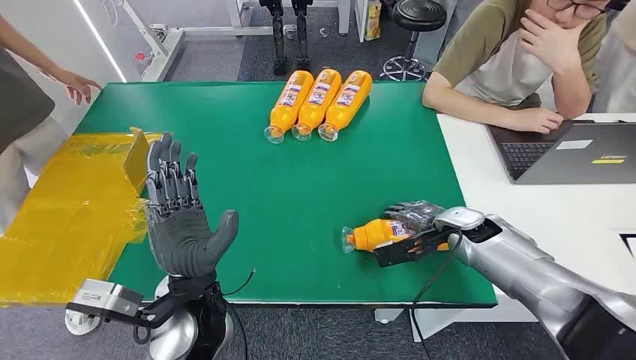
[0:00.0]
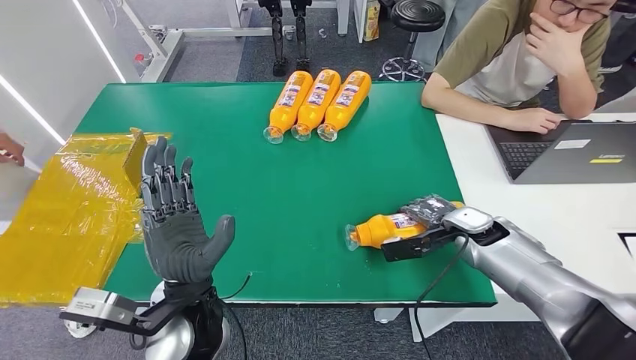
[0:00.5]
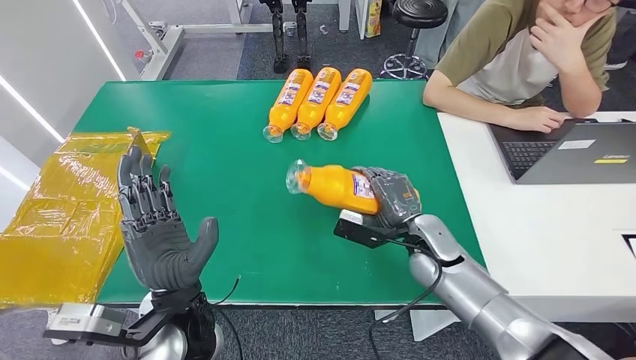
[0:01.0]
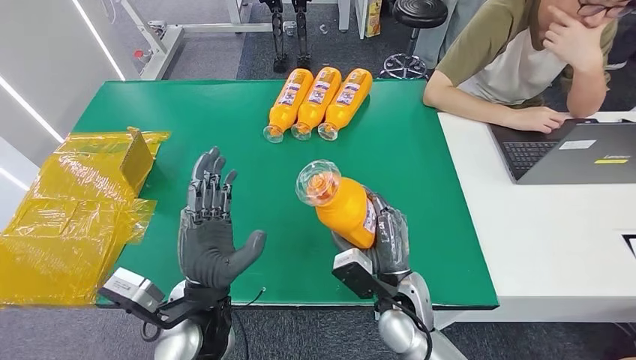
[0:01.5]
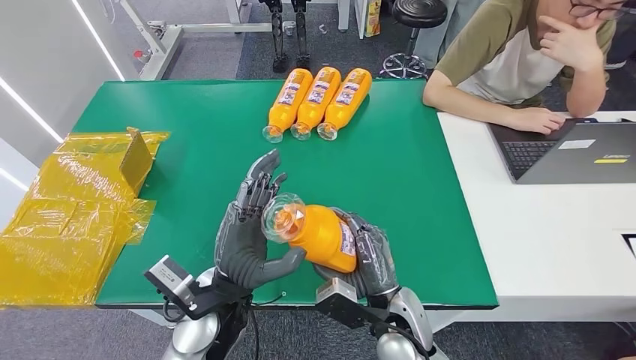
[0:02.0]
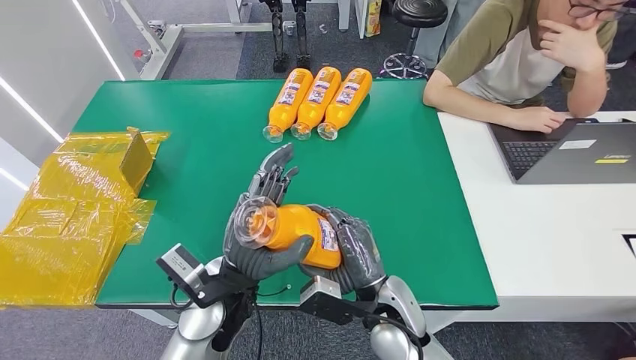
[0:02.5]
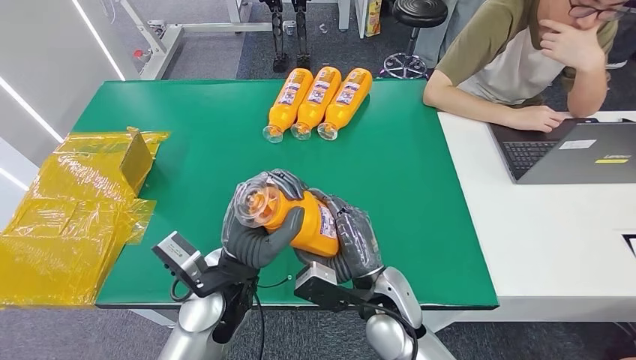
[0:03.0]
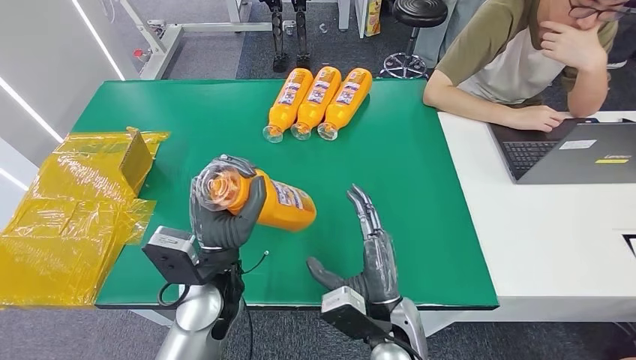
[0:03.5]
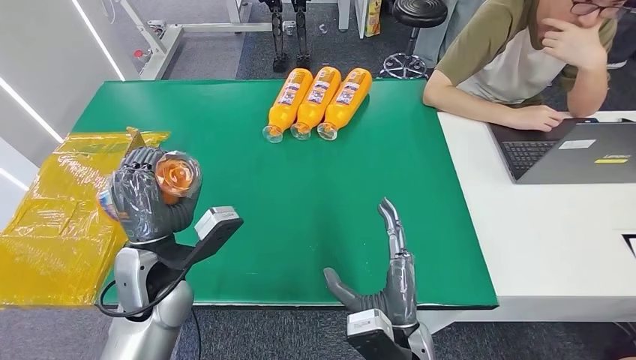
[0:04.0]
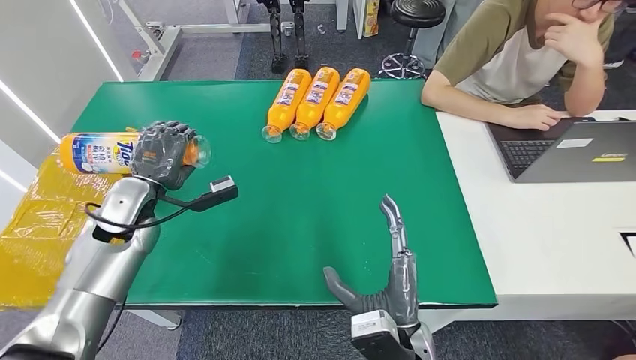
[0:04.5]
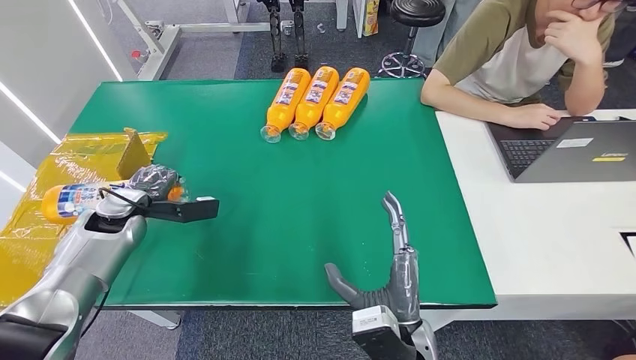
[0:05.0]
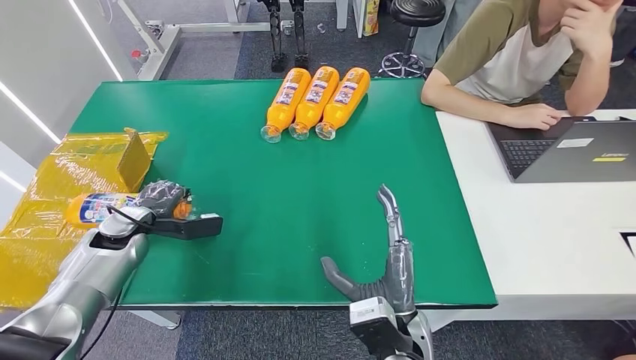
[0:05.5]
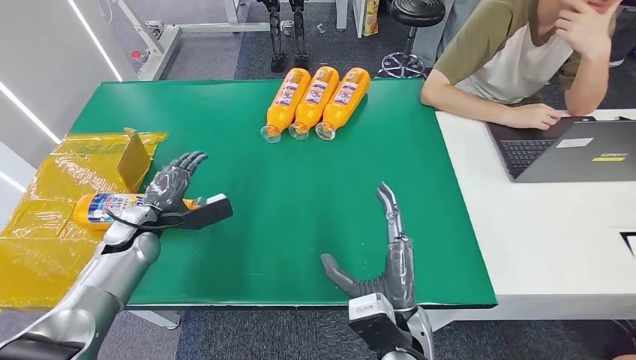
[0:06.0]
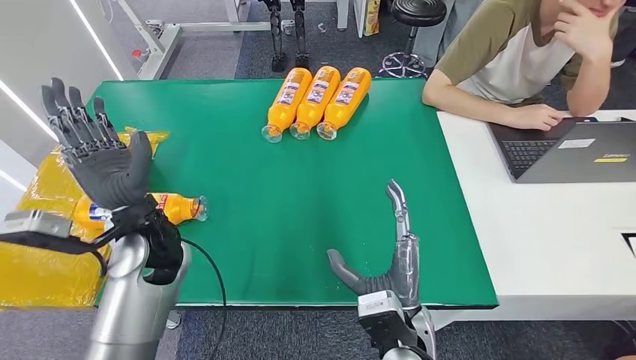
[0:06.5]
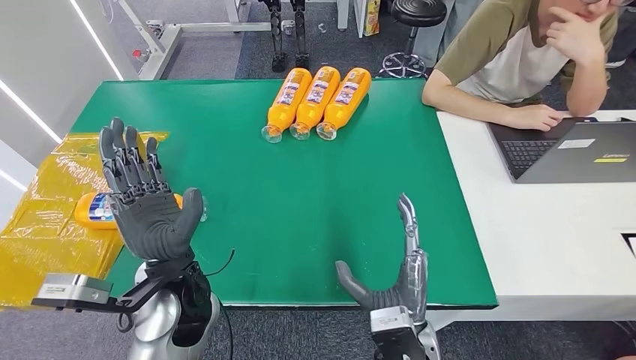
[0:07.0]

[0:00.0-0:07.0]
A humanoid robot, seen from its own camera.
Step, 0:00.0 to 0:01.5: Pick up the bottle from the table.
Step, 0:02.0 to 0:07.0: Turn the bottle to the front side.
0:05.0 to 0:07.0: The left hand moves to the right and backward, some 25 cm.
